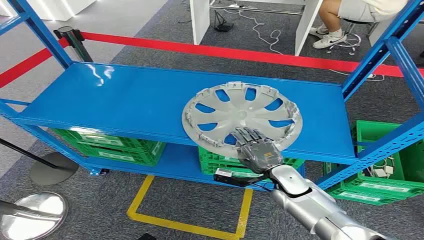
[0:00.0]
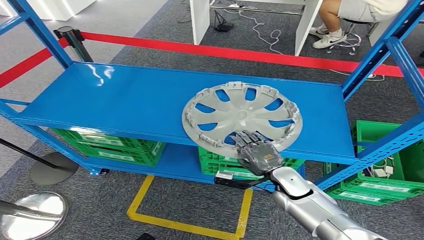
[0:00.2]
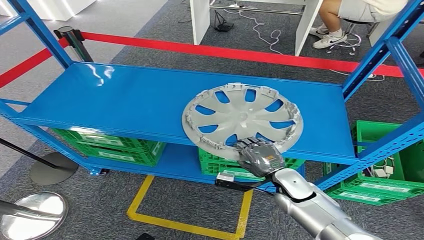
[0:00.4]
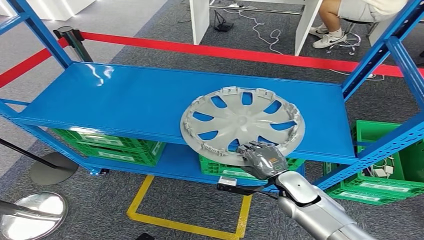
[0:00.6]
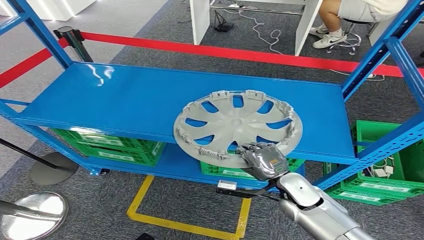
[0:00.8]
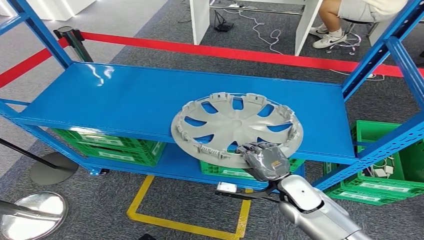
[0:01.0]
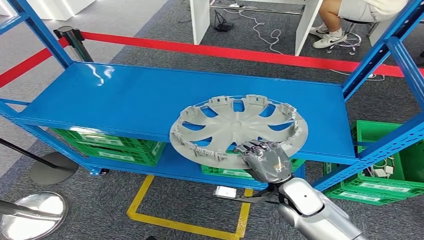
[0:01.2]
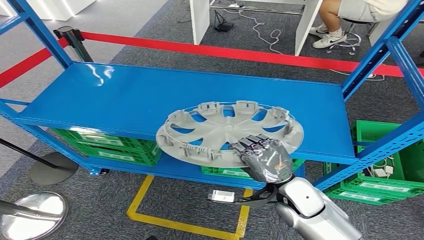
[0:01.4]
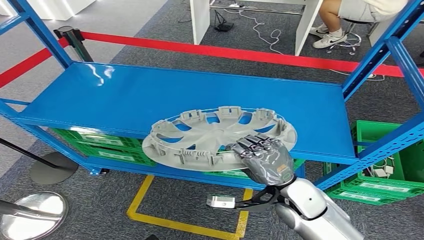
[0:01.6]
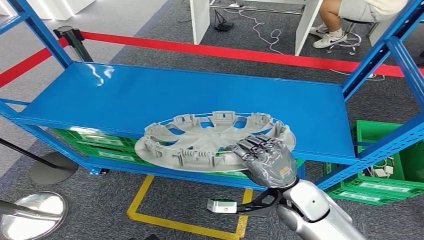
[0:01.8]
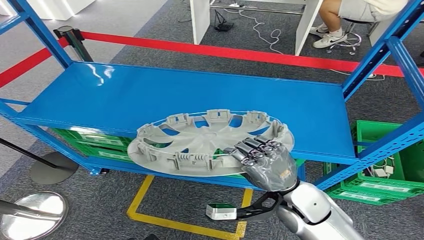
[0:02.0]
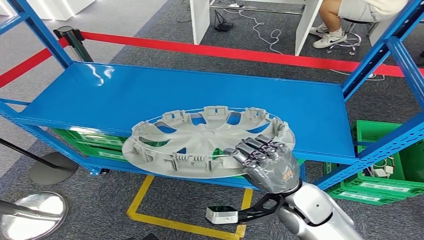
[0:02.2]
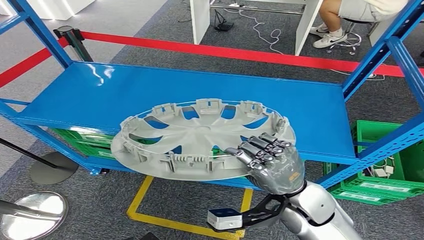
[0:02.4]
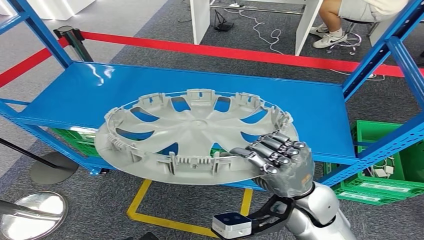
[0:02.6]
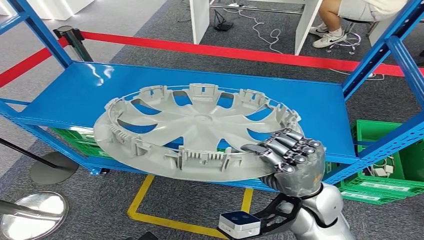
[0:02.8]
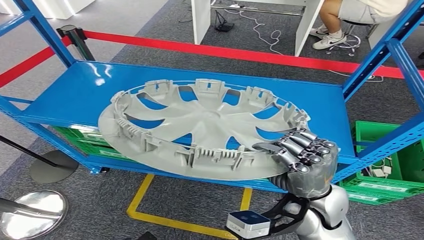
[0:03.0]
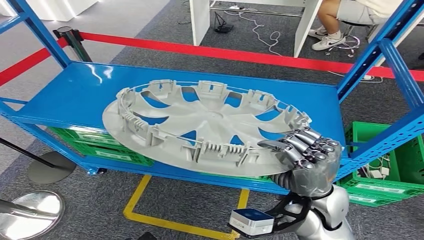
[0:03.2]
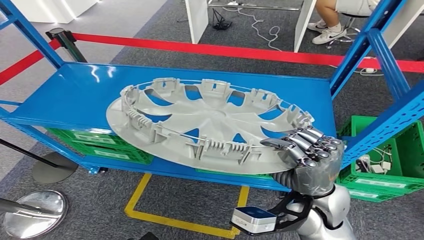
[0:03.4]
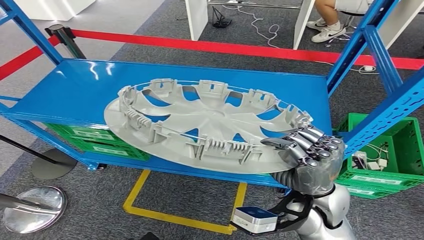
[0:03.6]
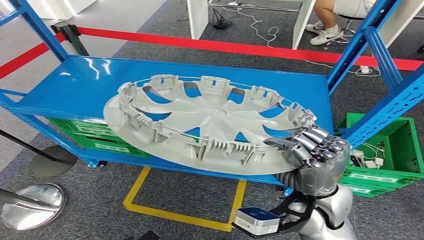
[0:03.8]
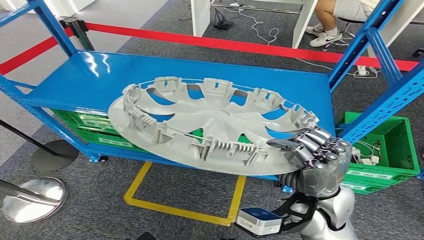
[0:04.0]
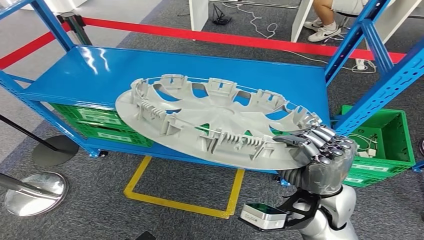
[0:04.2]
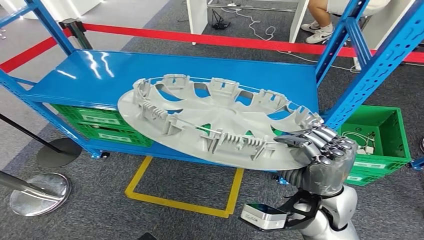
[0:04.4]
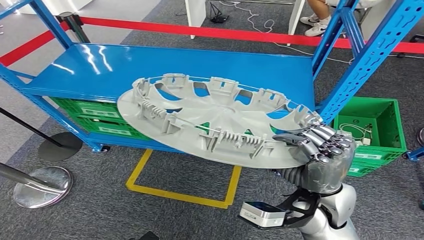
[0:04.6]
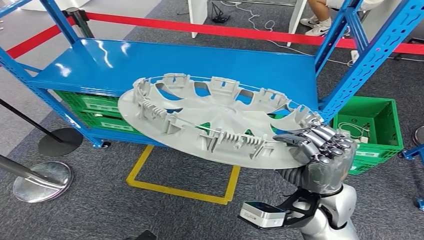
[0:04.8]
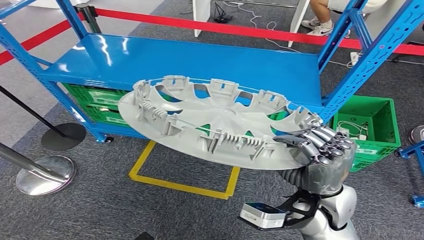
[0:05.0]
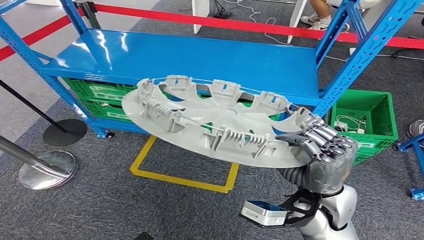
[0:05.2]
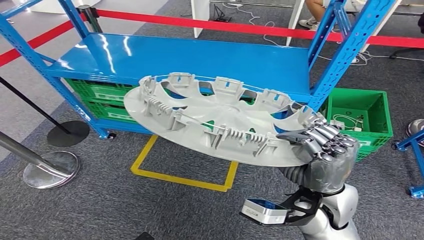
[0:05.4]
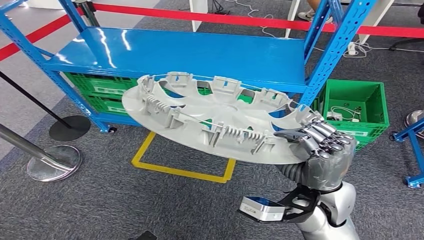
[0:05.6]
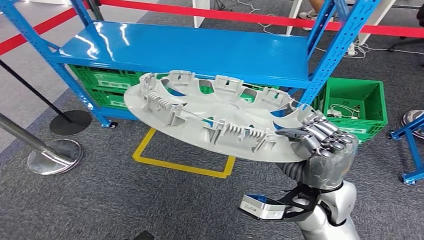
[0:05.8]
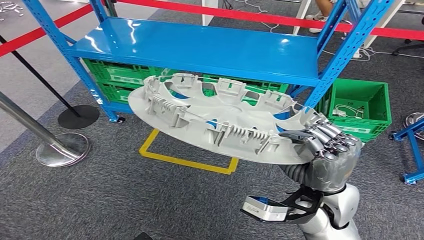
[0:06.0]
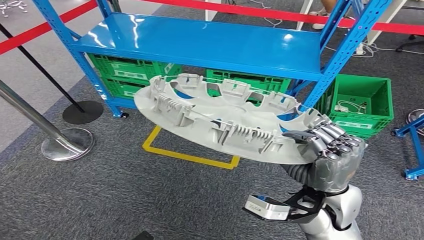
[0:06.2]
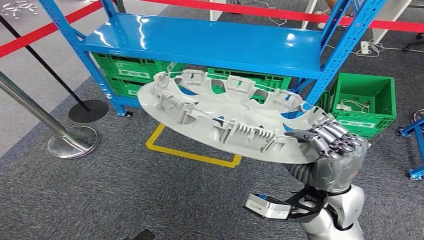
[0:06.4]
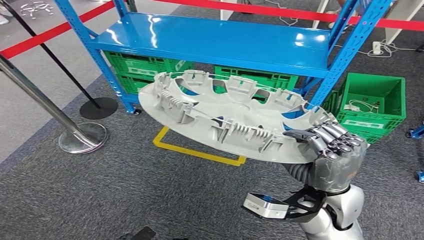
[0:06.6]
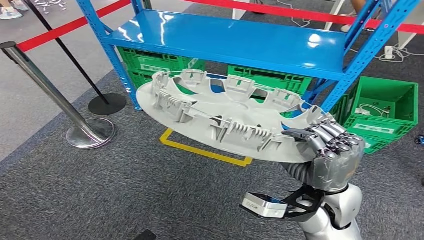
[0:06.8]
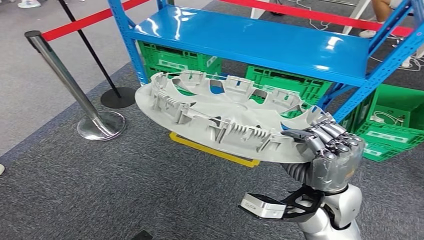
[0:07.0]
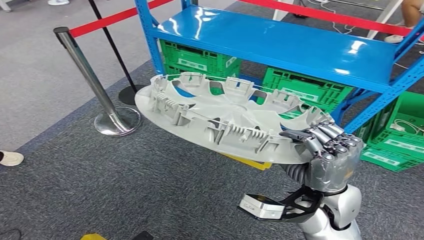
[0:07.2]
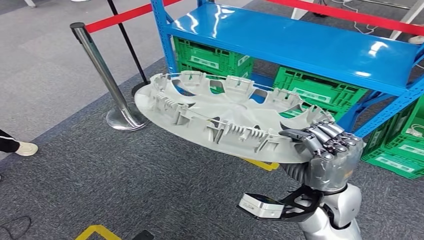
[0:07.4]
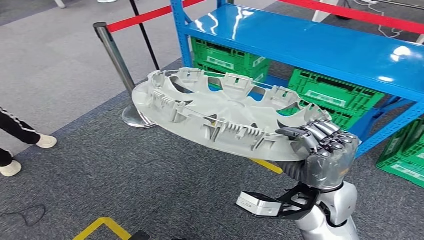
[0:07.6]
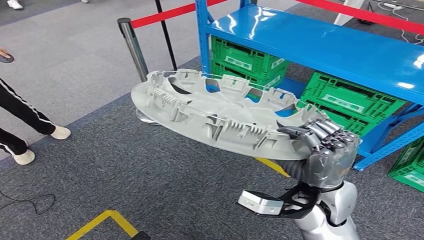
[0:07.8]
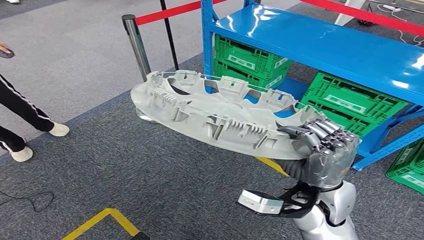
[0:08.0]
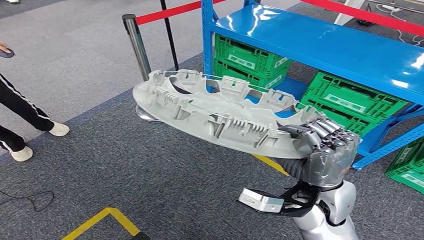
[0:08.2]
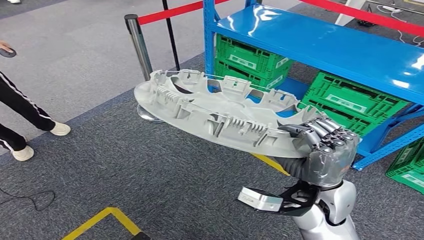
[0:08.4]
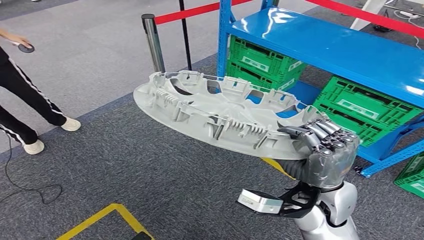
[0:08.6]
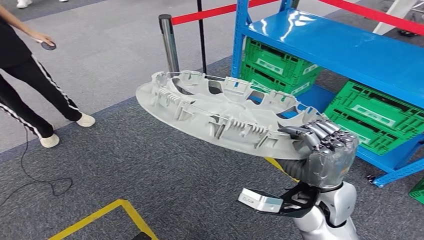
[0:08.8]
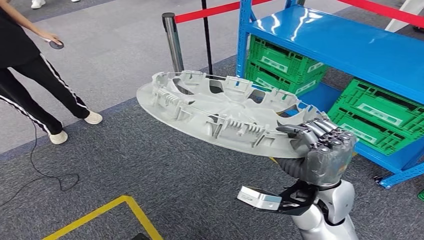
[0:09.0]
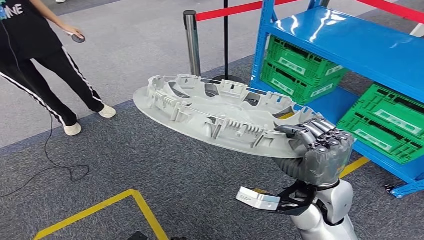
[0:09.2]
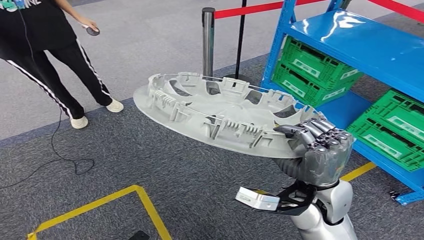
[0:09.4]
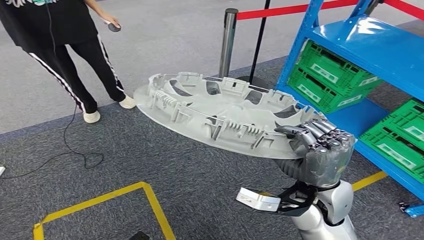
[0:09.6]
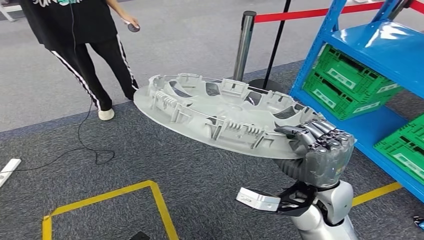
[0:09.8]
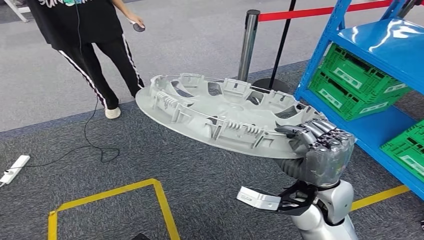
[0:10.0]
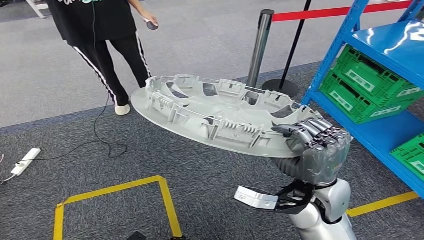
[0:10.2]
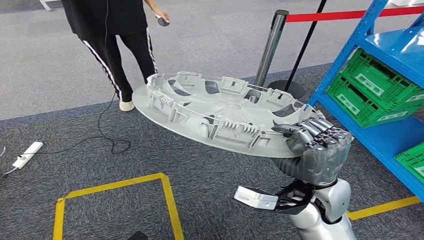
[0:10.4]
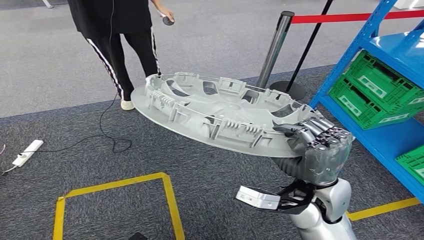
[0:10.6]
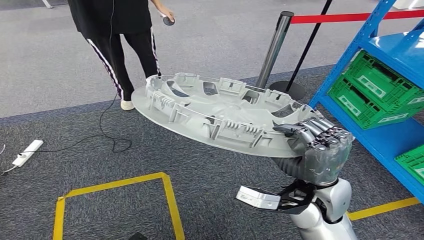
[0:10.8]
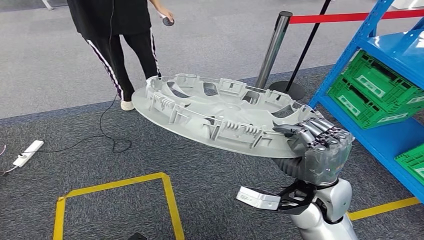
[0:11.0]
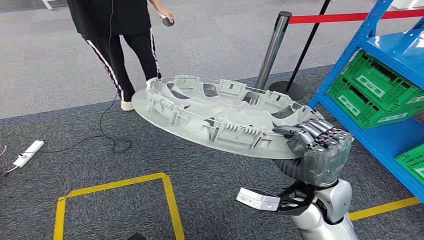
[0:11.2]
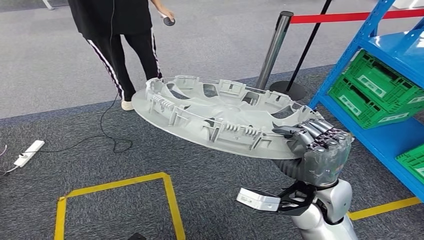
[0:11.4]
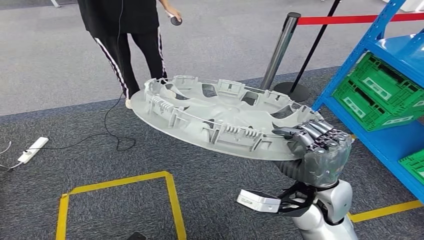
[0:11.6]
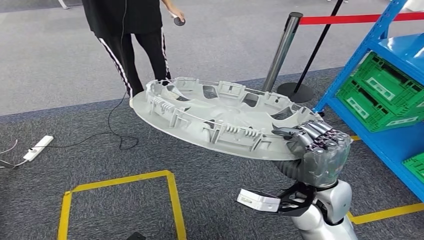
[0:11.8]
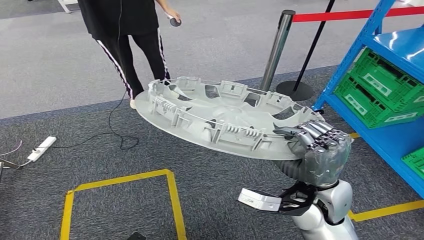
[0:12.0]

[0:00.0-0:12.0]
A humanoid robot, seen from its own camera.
Step, 0:00.0 to 0:06.4: Pick up the small parts from the shelf.

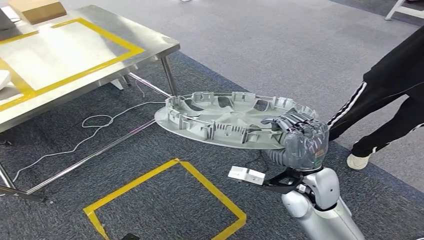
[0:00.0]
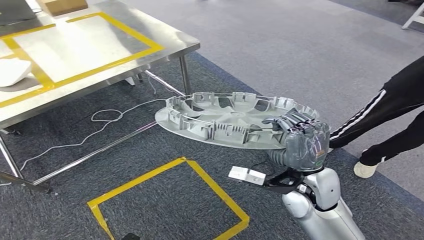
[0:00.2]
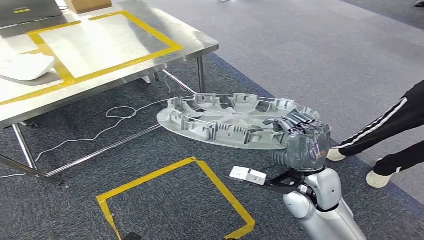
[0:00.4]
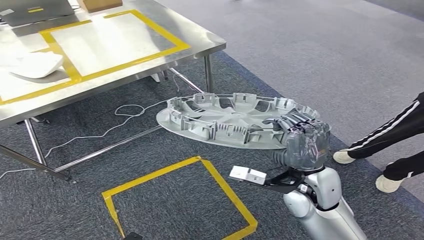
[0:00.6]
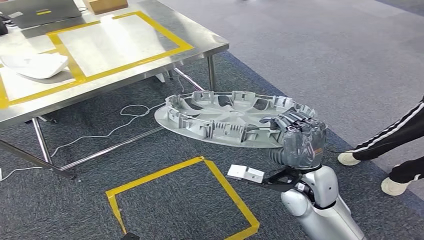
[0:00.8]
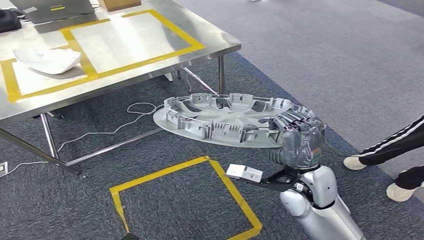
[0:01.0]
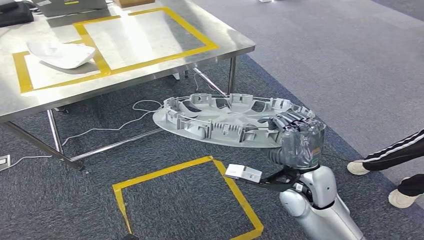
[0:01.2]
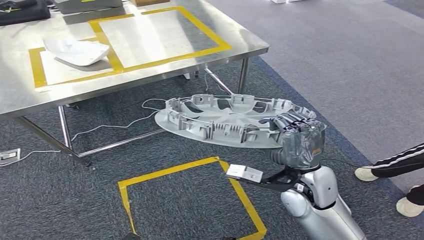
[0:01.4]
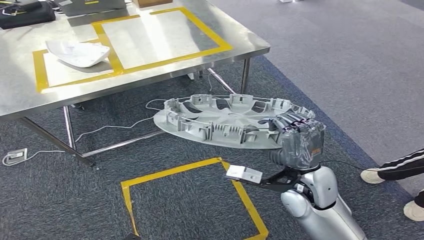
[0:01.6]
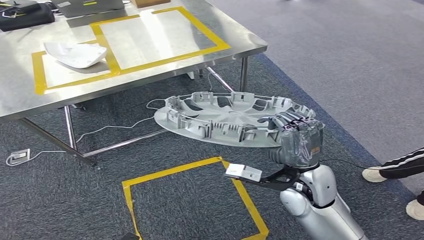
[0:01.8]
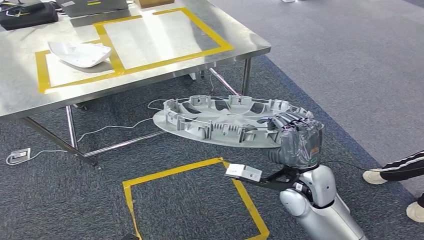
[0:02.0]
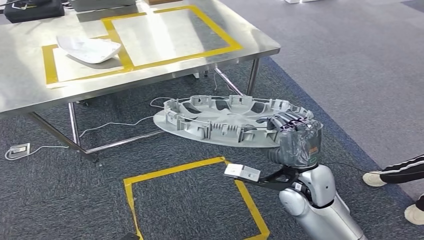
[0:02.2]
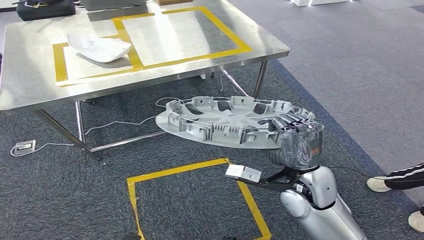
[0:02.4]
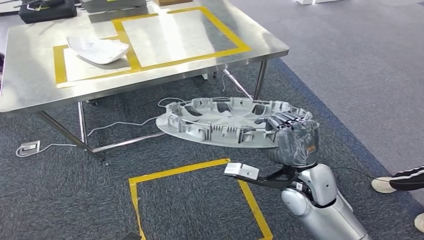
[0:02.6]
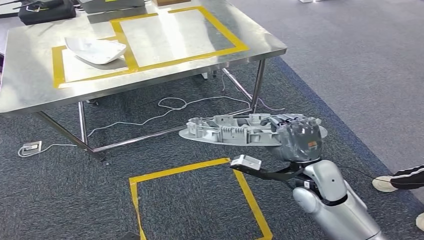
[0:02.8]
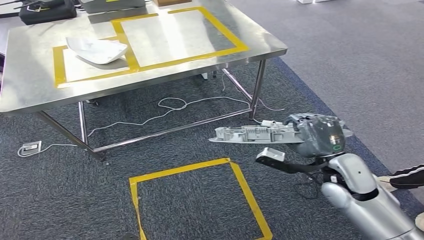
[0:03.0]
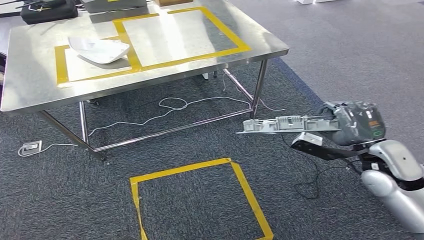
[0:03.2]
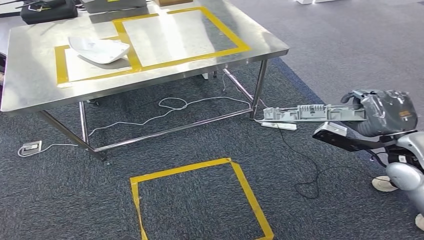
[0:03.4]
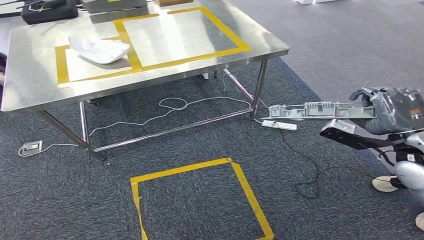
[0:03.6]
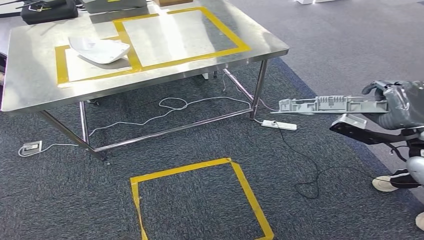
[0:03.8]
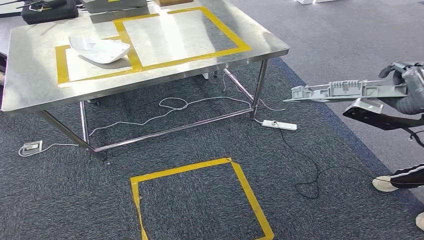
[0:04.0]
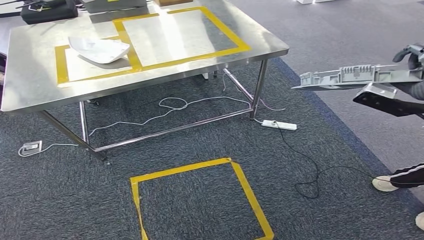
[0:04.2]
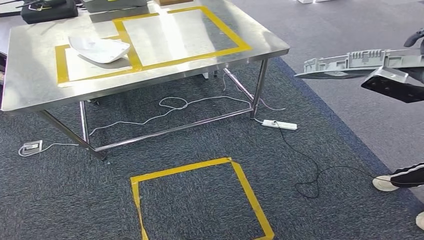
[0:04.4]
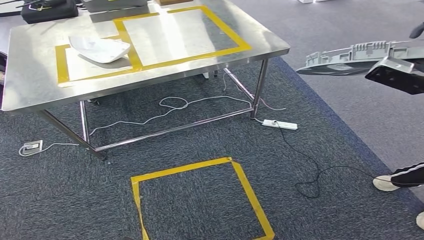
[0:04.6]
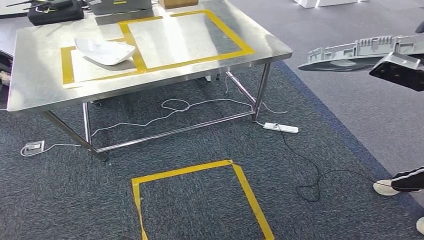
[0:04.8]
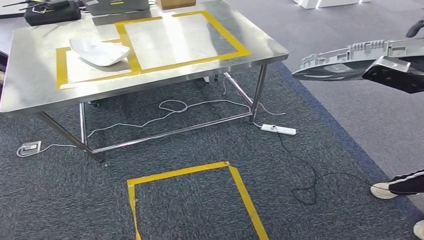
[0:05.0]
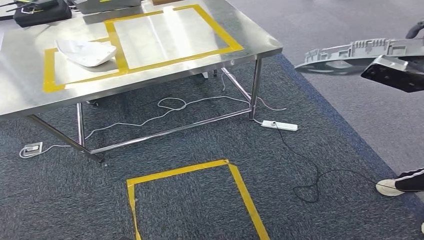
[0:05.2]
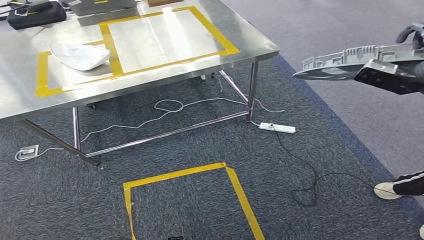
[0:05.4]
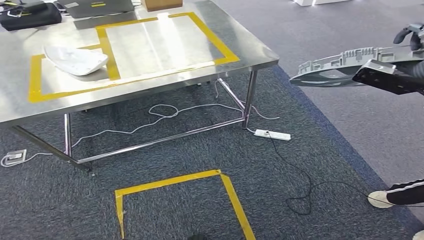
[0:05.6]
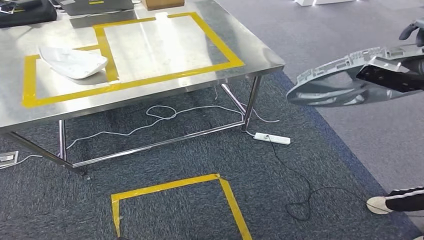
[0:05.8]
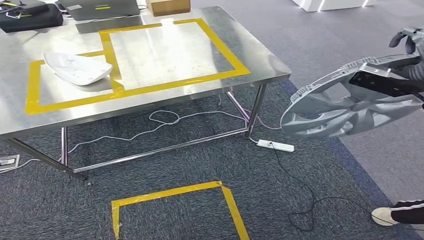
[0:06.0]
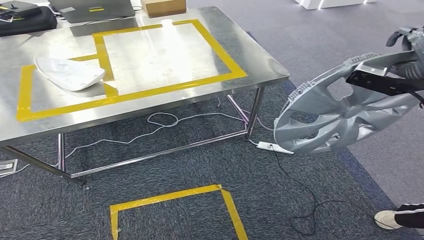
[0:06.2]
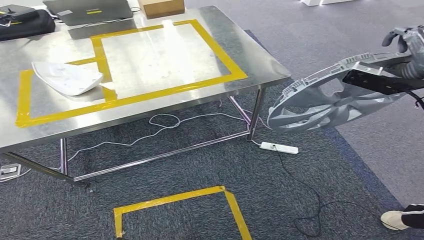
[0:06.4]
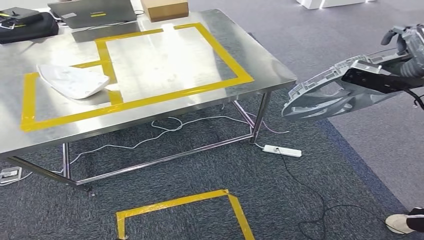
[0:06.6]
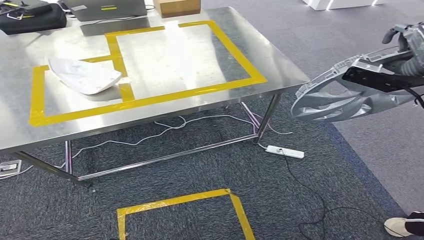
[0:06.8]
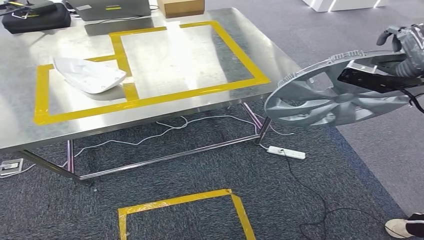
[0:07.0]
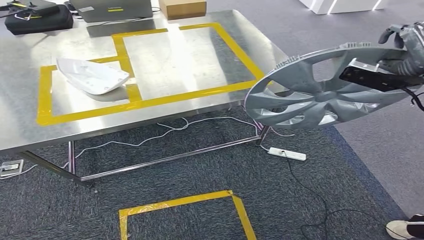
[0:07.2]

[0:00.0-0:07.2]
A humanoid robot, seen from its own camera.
0:02.8 to 0:04.4: The right hand moves upward and to the right, roughly 30 cm.
